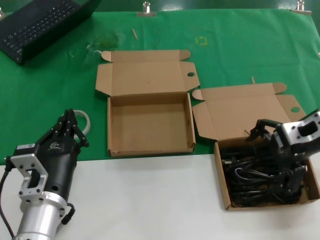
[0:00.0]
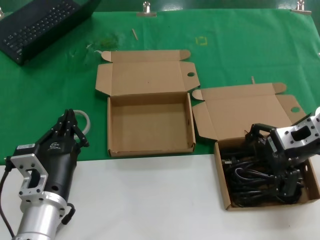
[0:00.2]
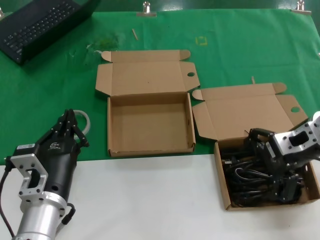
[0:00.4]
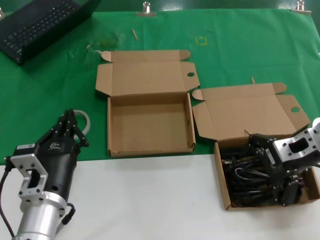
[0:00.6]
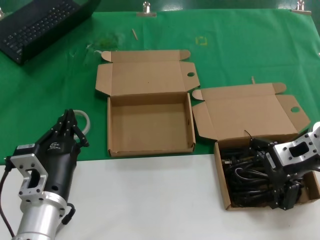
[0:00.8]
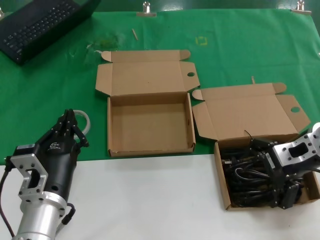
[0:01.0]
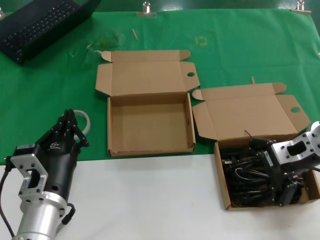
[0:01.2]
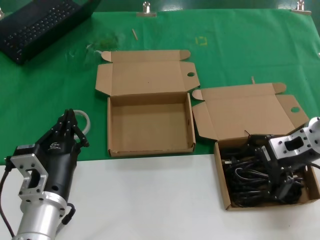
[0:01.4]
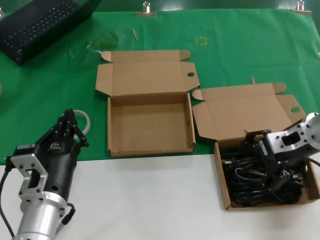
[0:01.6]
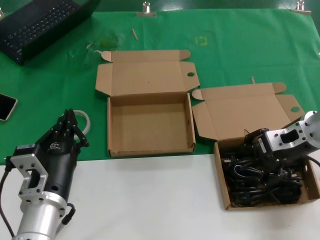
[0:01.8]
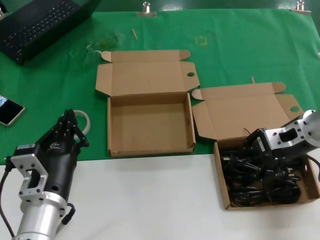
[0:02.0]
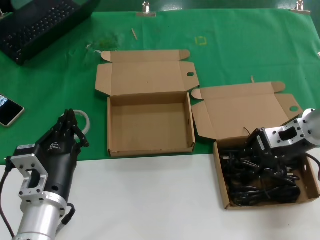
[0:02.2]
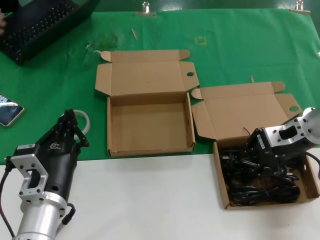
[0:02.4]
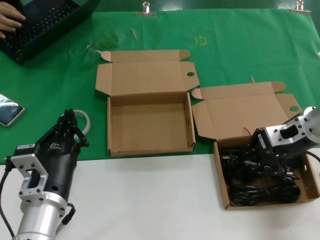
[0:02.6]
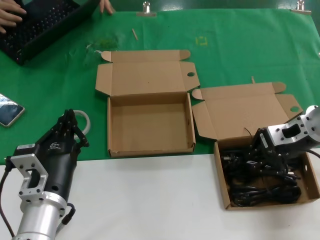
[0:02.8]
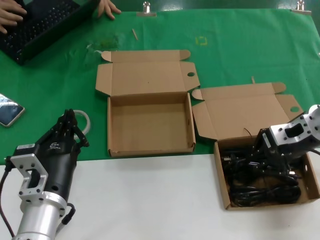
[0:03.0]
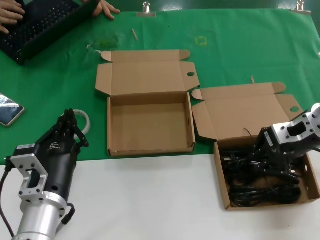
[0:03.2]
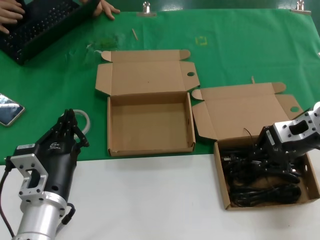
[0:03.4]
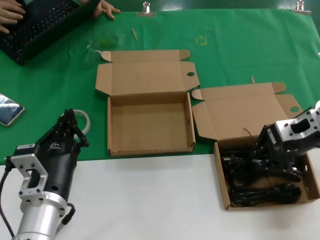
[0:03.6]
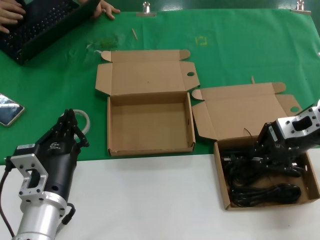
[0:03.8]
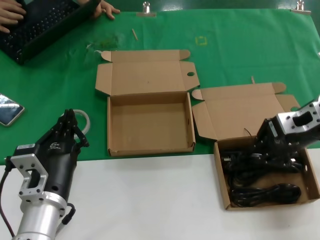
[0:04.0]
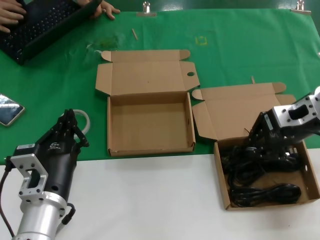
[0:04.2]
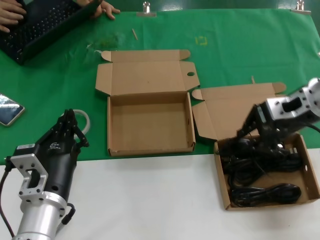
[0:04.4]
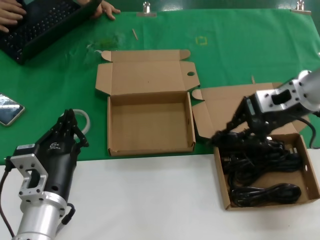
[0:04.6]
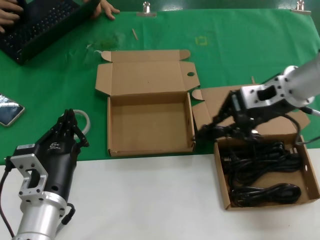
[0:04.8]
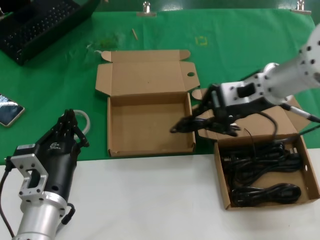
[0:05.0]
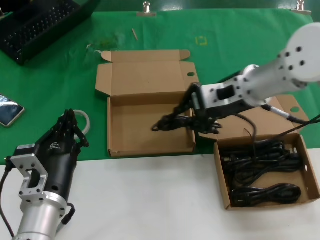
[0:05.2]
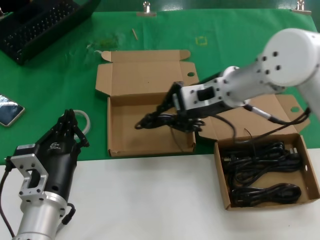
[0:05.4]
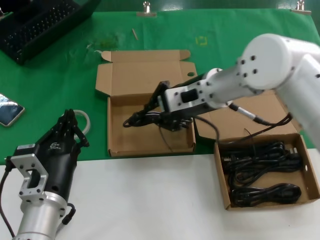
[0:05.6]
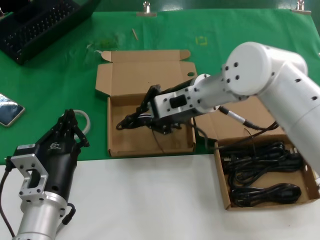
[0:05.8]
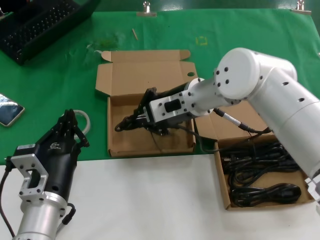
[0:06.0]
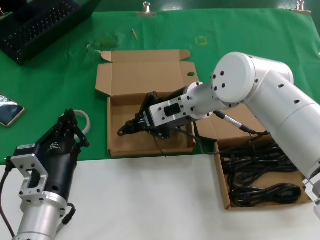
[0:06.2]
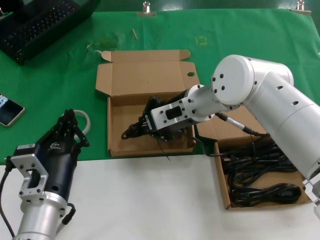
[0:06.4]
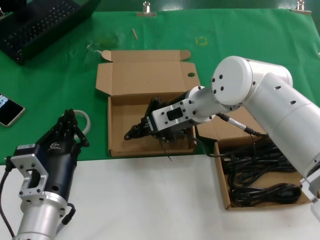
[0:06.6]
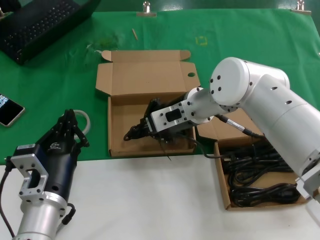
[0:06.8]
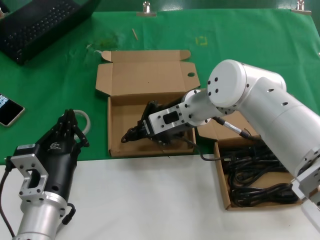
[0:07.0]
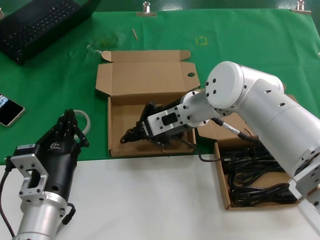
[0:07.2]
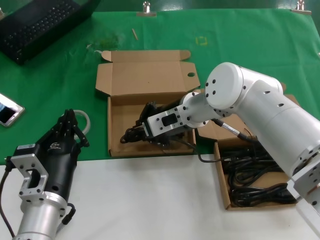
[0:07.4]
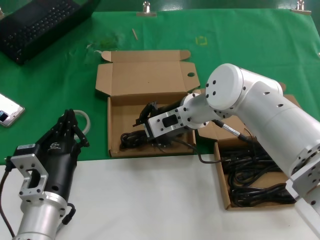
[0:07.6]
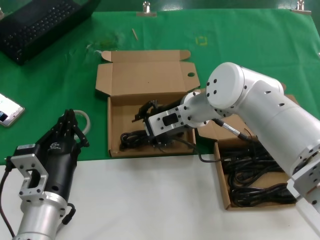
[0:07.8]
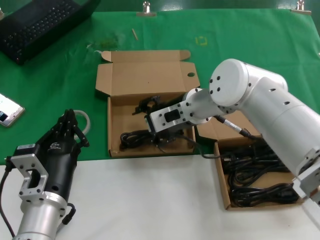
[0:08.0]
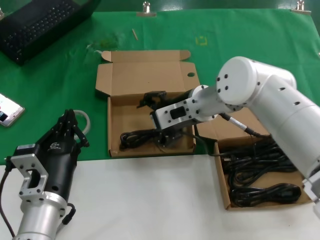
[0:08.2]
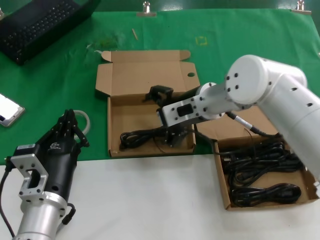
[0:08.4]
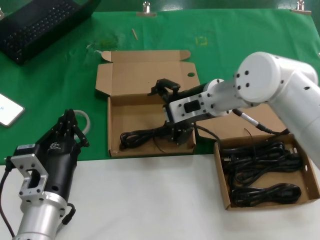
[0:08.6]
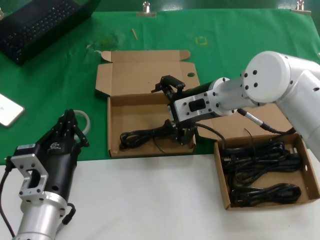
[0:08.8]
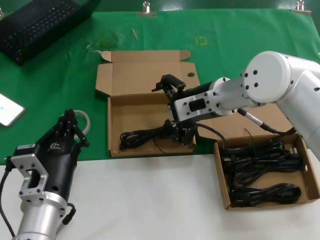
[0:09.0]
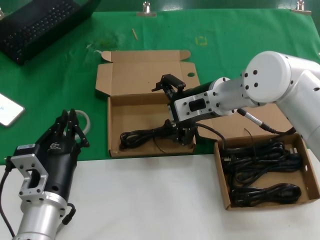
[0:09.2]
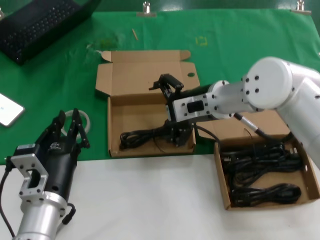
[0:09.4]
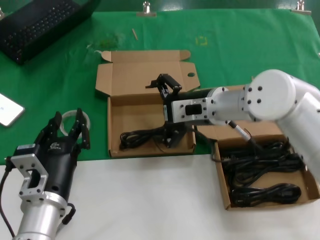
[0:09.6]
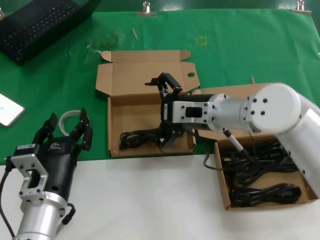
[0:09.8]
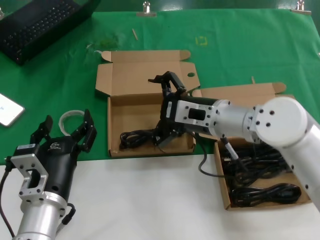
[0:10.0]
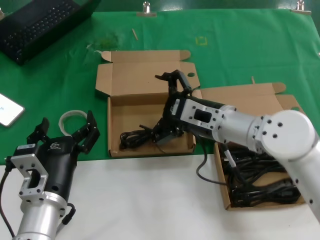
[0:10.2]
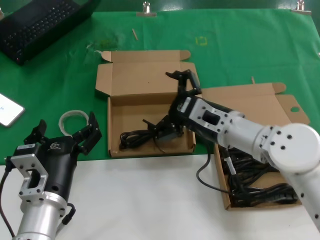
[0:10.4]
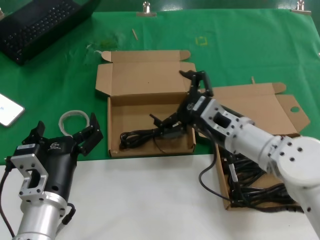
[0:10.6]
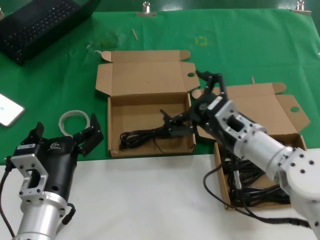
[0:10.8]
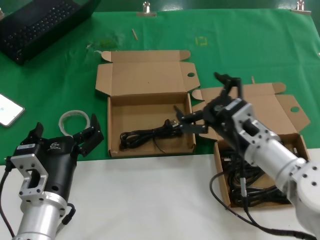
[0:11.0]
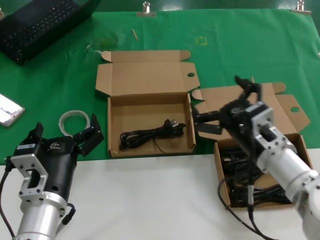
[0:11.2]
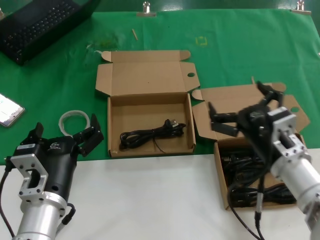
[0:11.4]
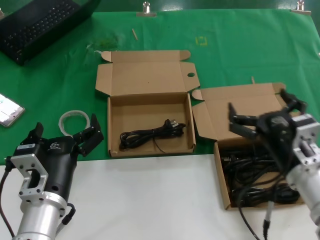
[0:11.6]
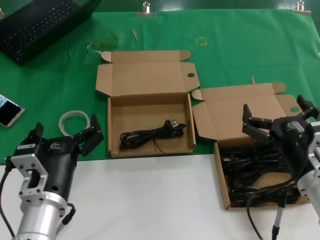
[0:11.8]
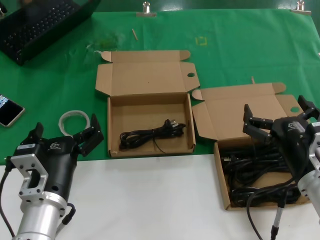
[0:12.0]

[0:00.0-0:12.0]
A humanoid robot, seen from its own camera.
Task of the whole recording: take the parts from the box containing them and put them into an empty box.
Step, 0:00.0 to 0:02.6: Grasp the data cable.
Step, 0:03.0 to 0:07.6: Place the data cable in the another box.
0:00.0 to 0:03.0: The hands move only a little.
0:03.0 to 0:04.4: The right hand travels upward by about 5 cm.
0:04.4 to 0:06.0: The right hand is displaced to the left by approximately 20 cm.
0:06.0 to 0:07.6: The hands make only small movements.
0:07.6 to 0:09.0: The right hand shifts approximately 5 cm to the right.
0:09.0 to 0:10.4: The right hand travels downward and backward by some 10 cm.
0:10.4 to 0:12.0: The right hand heads backward, to the right and downward, covering approximately 15 cm.

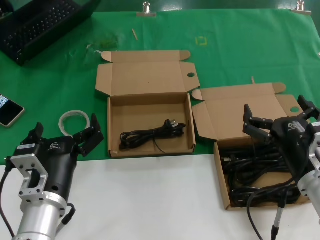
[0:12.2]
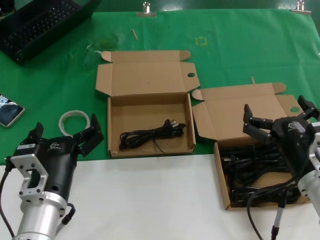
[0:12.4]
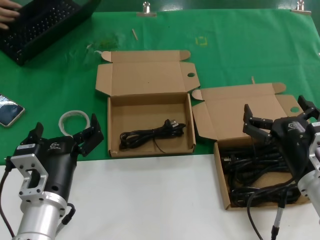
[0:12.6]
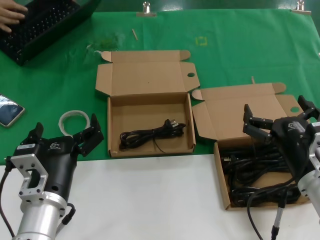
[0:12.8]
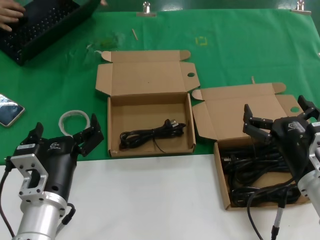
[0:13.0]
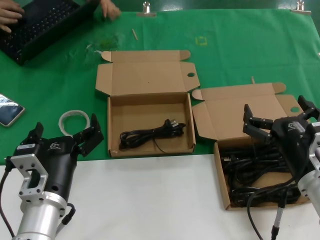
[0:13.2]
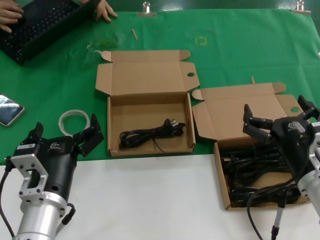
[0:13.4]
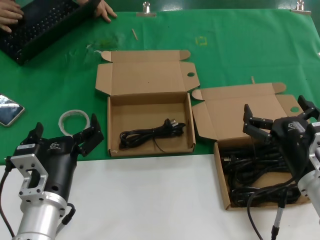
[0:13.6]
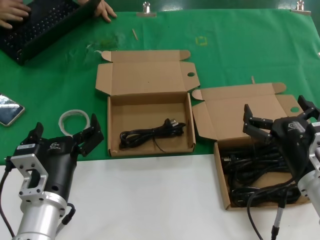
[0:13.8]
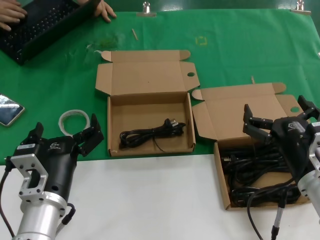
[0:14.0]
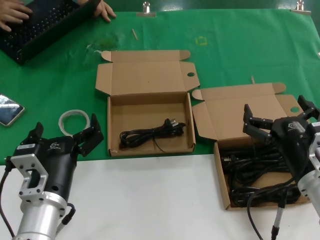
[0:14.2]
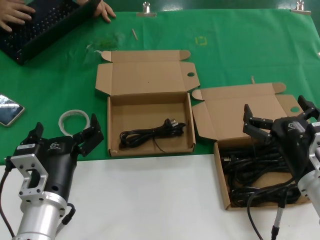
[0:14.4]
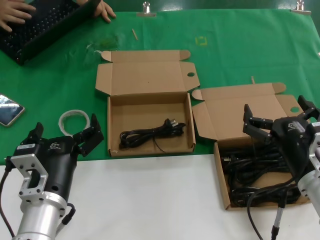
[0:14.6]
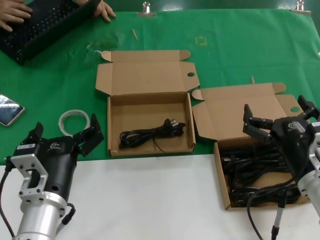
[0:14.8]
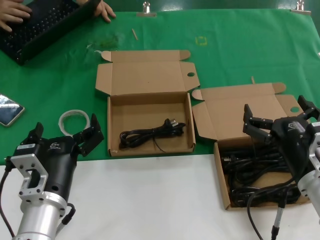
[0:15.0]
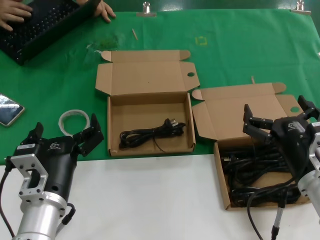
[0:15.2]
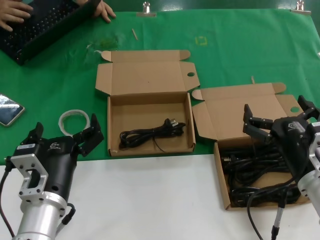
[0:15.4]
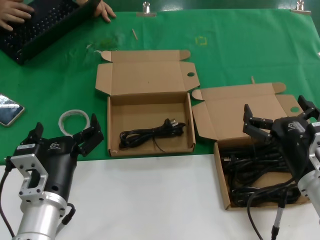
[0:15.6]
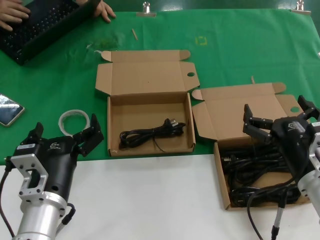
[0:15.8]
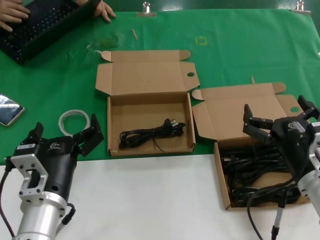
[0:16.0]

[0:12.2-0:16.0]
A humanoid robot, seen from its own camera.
Task of the whole recording: take the parts from the box containing them and put them into an empty box.
0:12.2 to 0:16.0: Neither hand changes place.

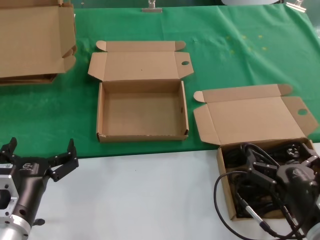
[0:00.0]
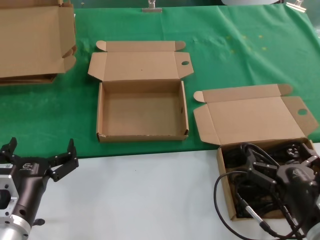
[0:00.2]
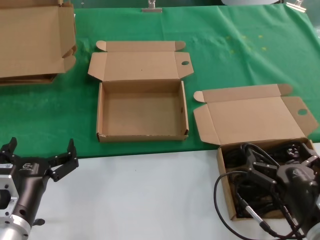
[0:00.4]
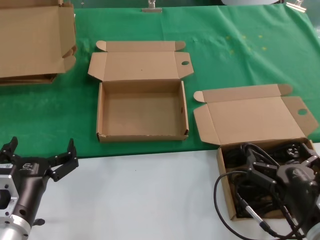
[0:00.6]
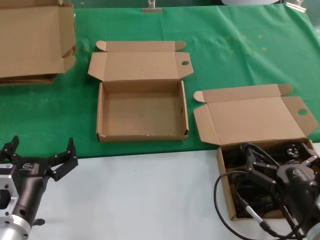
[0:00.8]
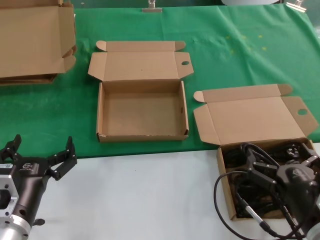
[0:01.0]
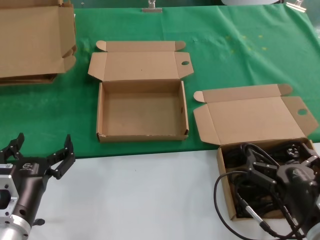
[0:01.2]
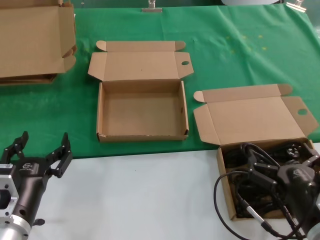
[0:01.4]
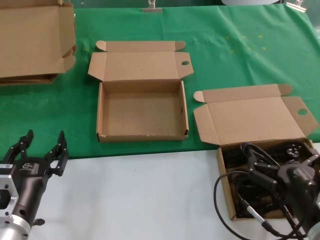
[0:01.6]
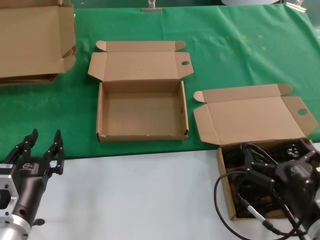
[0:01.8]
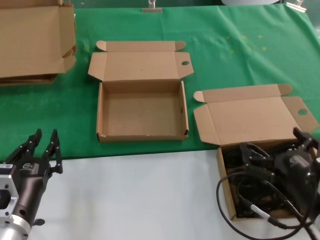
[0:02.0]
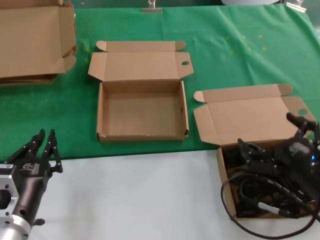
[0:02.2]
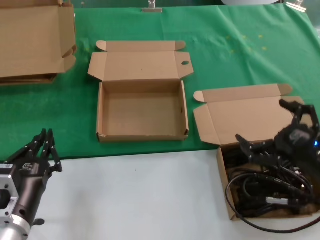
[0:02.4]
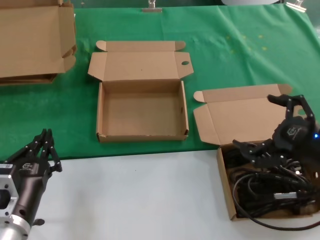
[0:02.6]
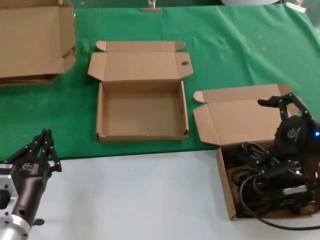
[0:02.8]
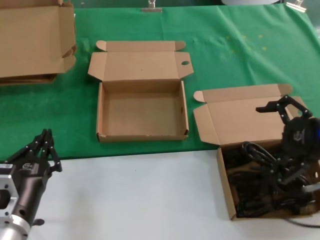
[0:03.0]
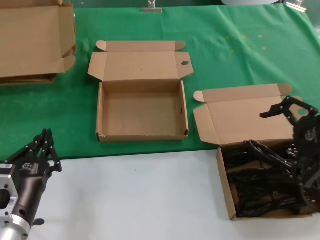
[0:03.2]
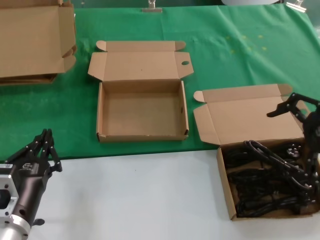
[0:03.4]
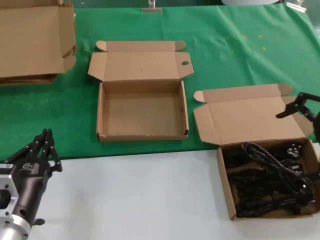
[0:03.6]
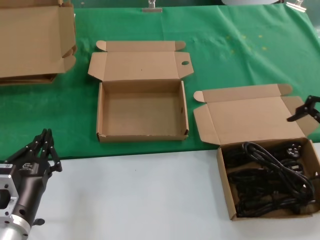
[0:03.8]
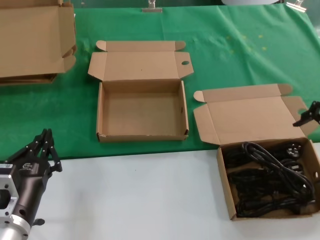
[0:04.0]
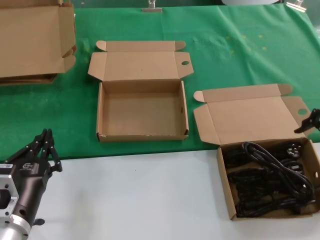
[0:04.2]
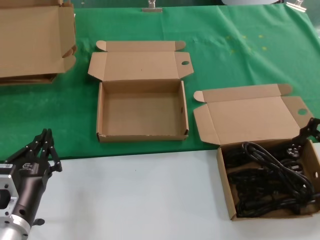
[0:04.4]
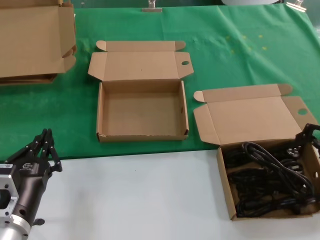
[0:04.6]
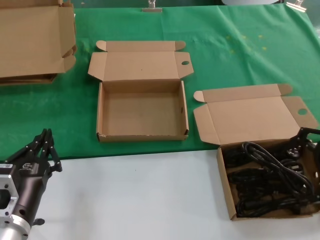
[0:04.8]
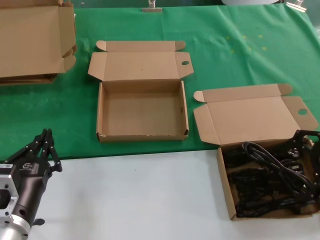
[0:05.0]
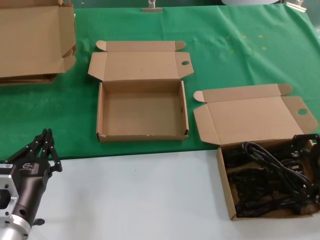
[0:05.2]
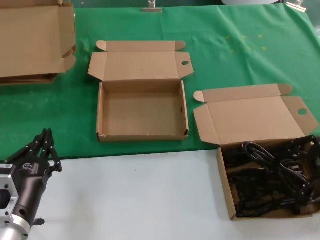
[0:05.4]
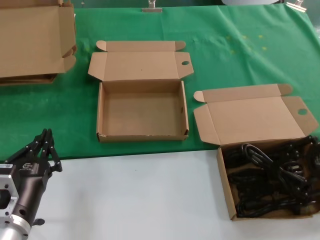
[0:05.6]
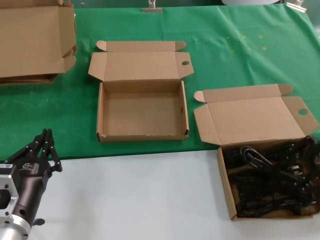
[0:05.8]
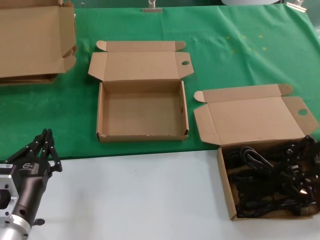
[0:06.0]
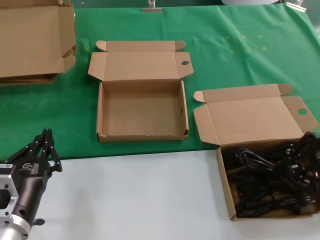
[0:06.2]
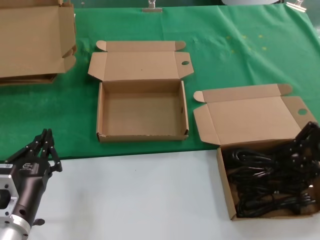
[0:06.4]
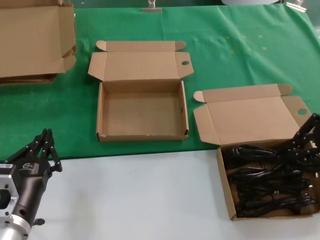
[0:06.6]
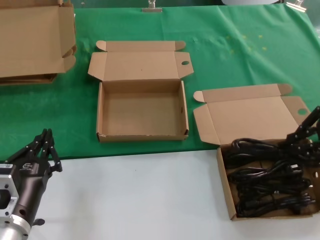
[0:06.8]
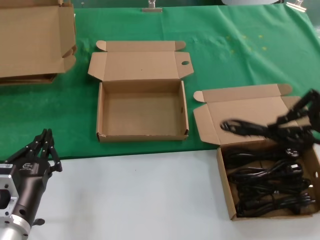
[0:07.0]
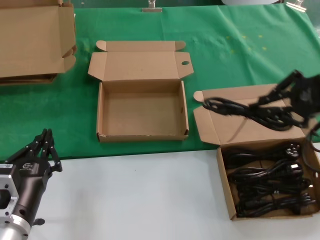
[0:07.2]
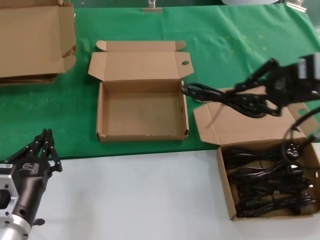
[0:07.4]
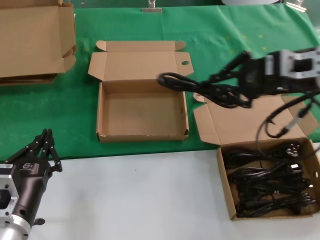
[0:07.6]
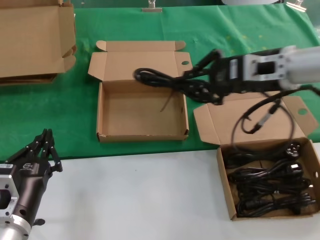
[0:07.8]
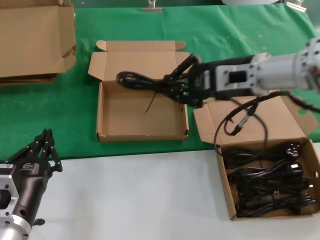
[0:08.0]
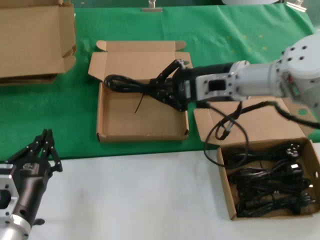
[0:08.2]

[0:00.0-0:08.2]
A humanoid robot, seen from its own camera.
Task of the whole recording: take the parts from the box containing them and put them into an empty box.
Step, 0:00.0 to 0:06.2: Grasp the data cable.
0:00.0 to 0:01.6: The two hands keep their place.
0:01.6 to 0:03.2: The right hand shifts roughly 30 cm upward, to the right and forward.
0:03.2 to 0:05.0: The right hand moves approximately 5 cm upward and comes back.
0:05.0 to 0:06.6: There are only small adjustments of the hands.
0:06.6 to 0:08.2: The right hand shifts approximately 25 cm to the left.
